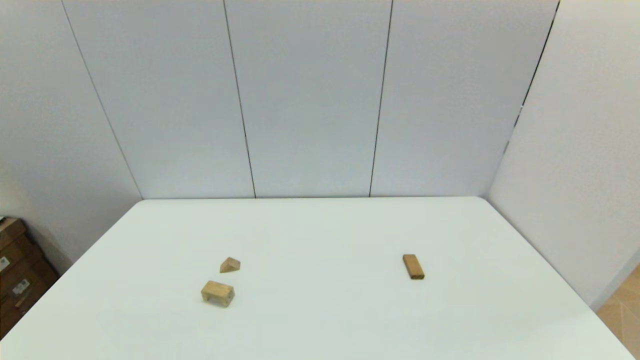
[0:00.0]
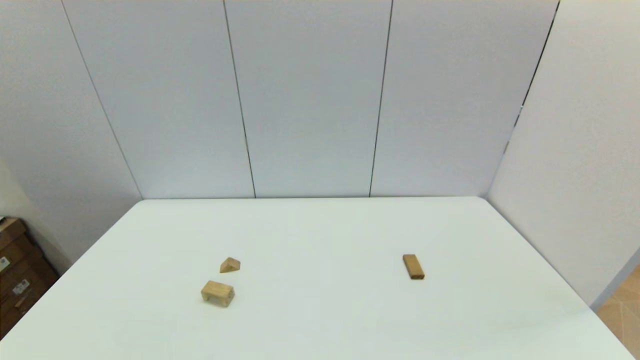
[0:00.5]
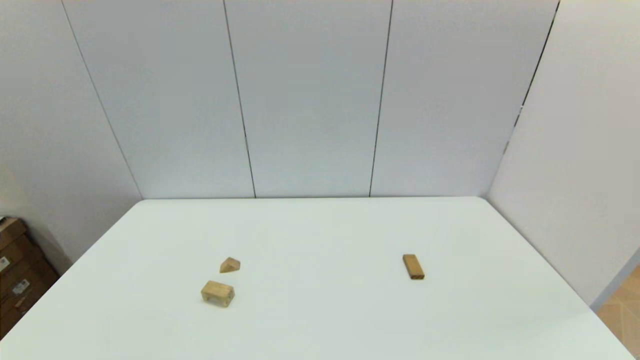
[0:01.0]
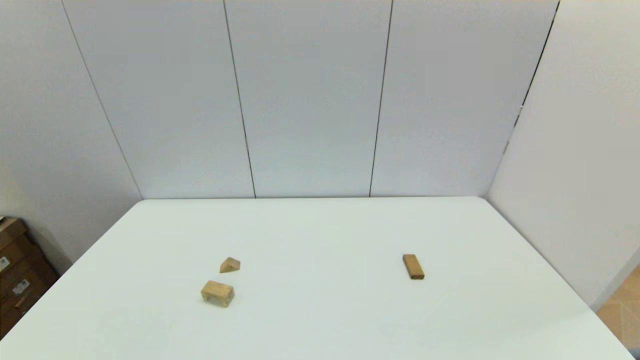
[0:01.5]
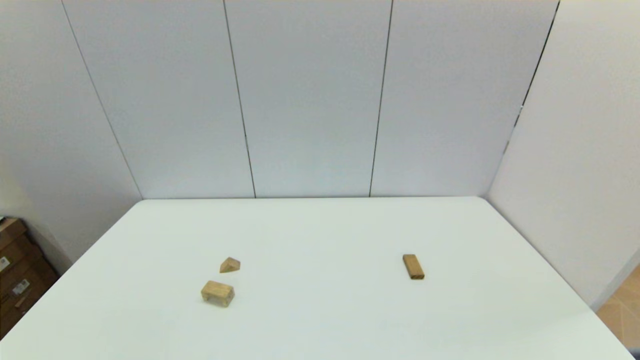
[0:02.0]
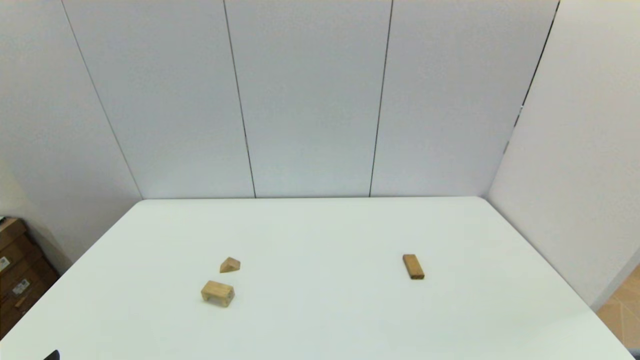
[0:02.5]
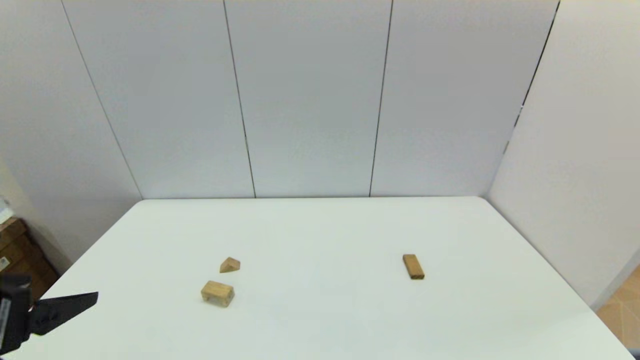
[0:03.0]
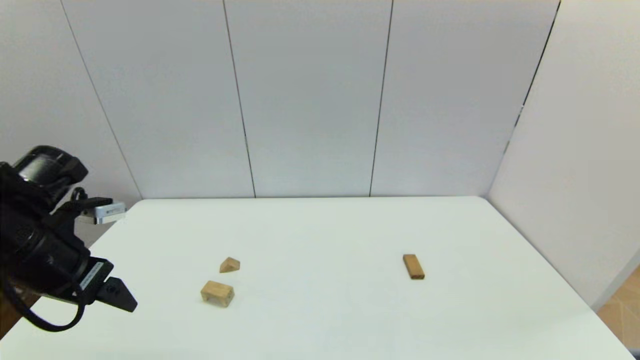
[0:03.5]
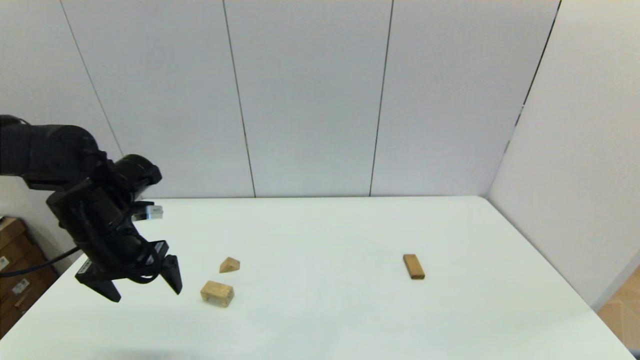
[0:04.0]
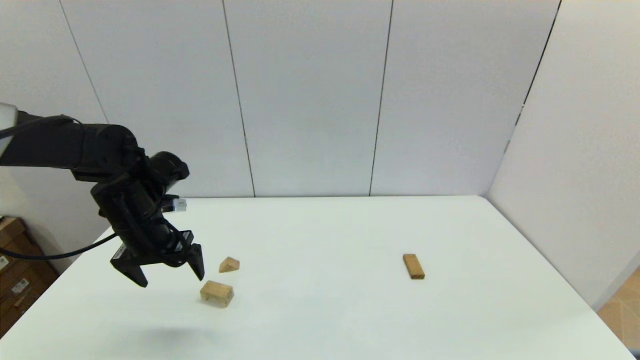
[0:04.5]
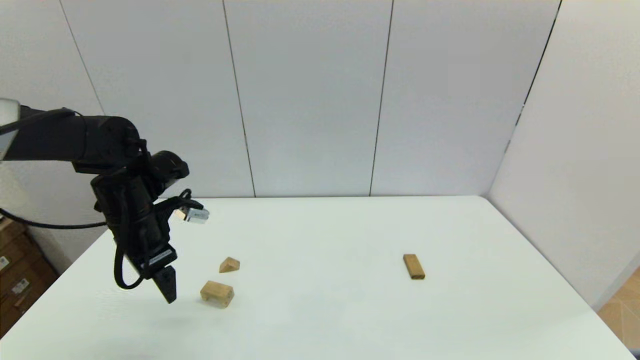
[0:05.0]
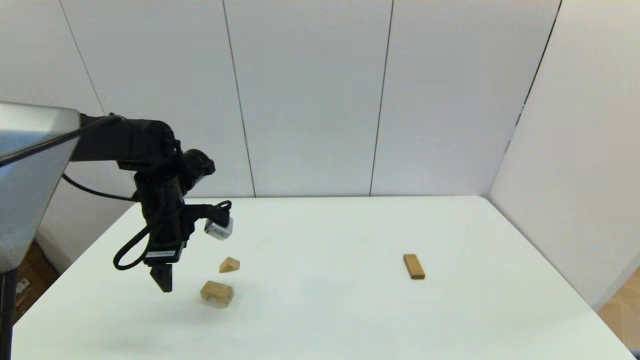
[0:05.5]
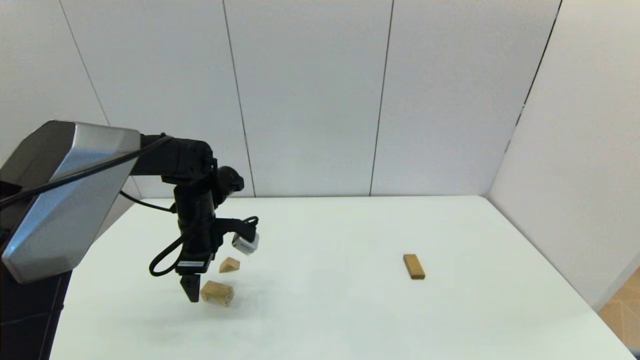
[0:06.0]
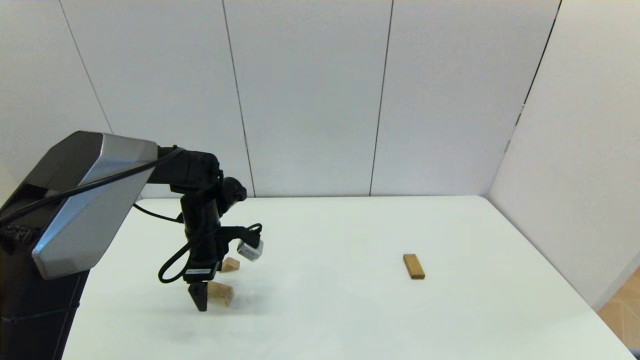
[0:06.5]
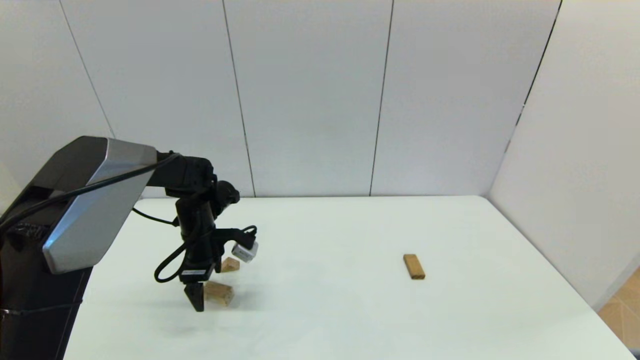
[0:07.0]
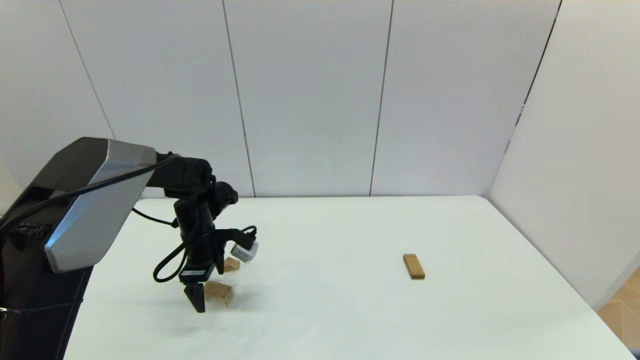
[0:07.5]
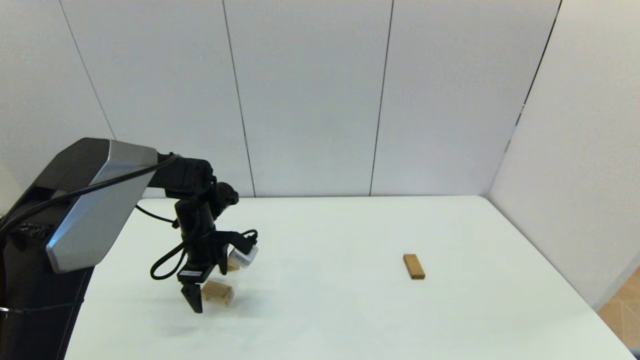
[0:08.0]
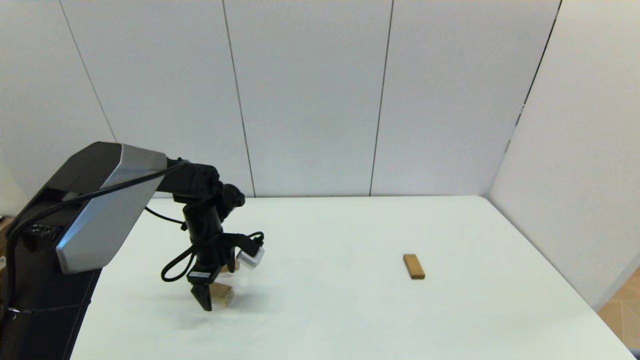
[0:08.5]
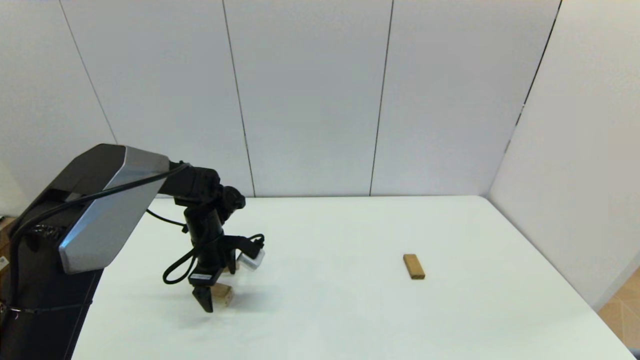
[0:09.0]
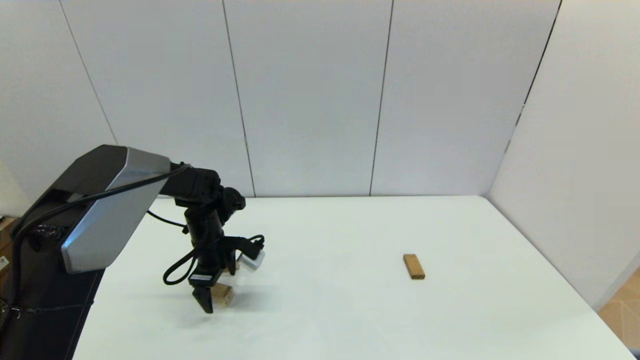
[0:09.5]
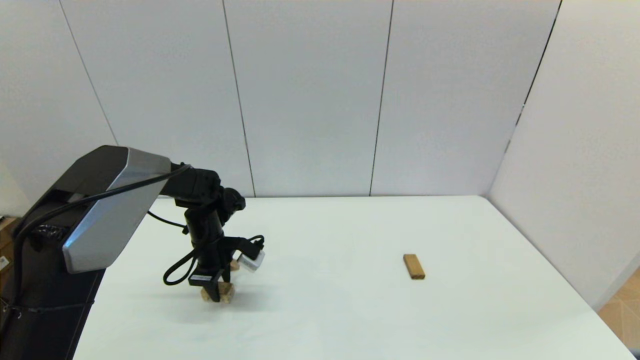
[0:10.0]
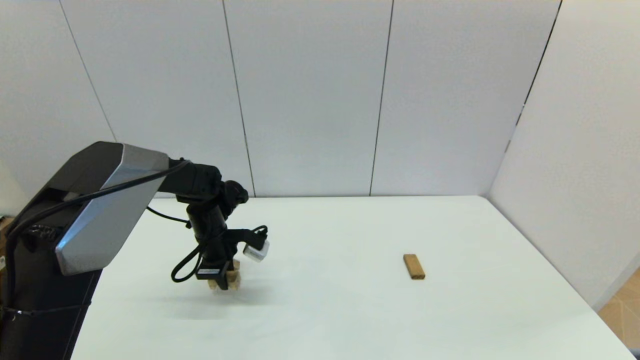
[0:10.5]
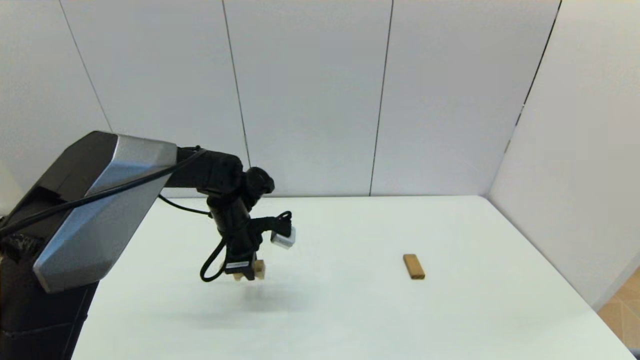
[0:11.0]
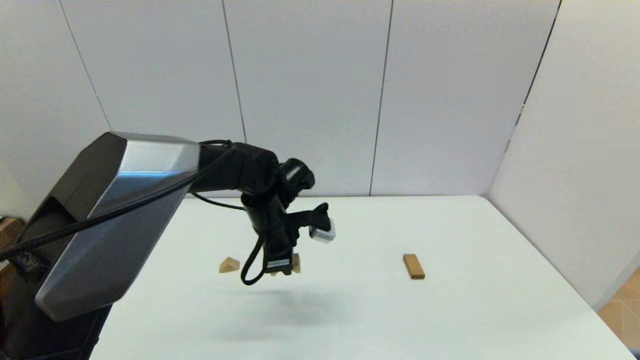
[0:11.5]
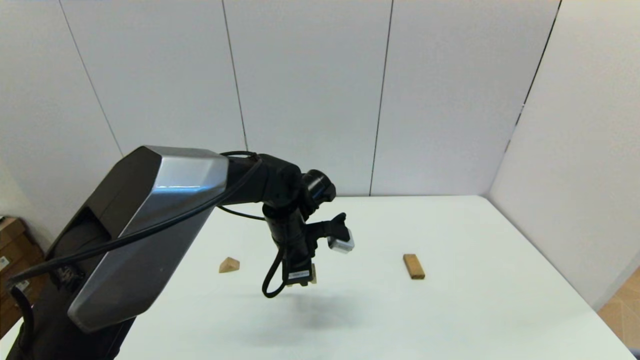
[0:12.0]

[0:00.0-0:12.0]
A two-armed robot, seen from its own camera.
Task of the whole recording: place the arched building blocks in the center of the table, set up the rectangular building blocks, and then set up the triangular building blocks.
Step, 0:02.5 to 0:09.5: Grasp the arch-shaped block with the left gripper.
0:00.0 to 0:02.0: The two grippers keep their place.
0:02.0 to 0:04.0: The left gripper travels forward by approximately 30 cm.
0:04.0 to 0:06.0: The left gripper is displaced forward, to the right and downward by some 10 cm.
0:06.0 to 0:08.0: There are only small adjustments of the grippers.
0:08.0 to 0:10.0: The left gripper closes its fingers.
0:10.0 to 0:12.0: The left gripper travels to the right by about 15 cm.

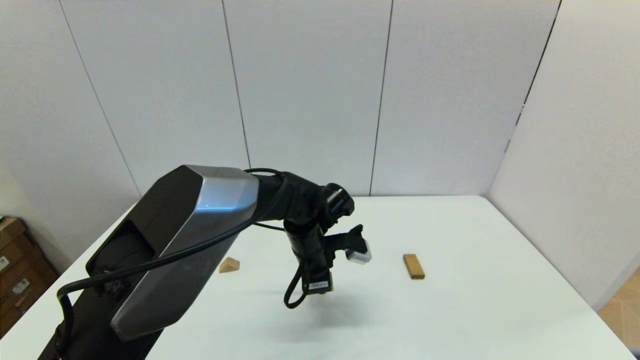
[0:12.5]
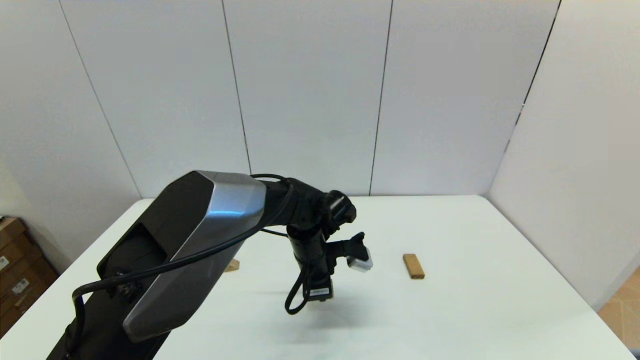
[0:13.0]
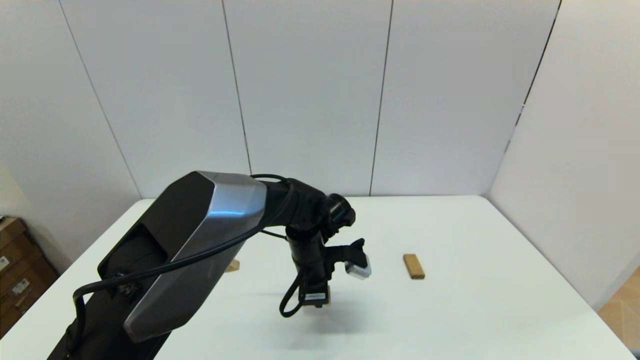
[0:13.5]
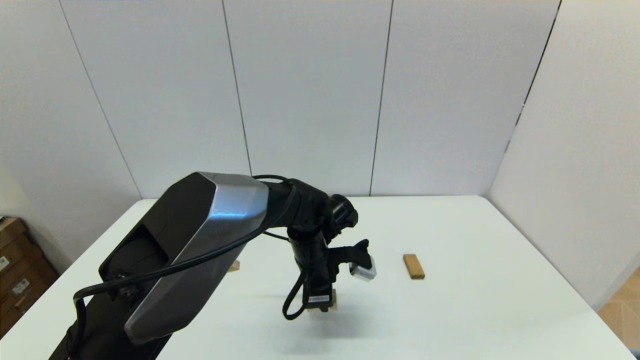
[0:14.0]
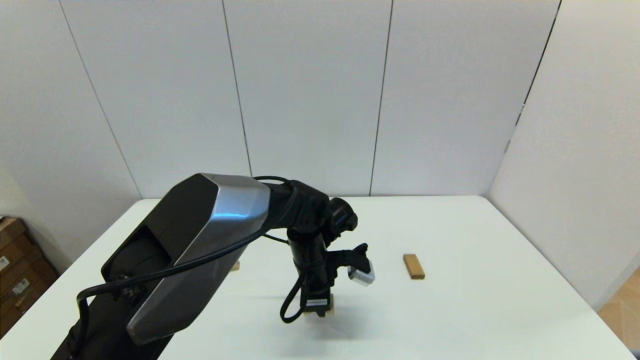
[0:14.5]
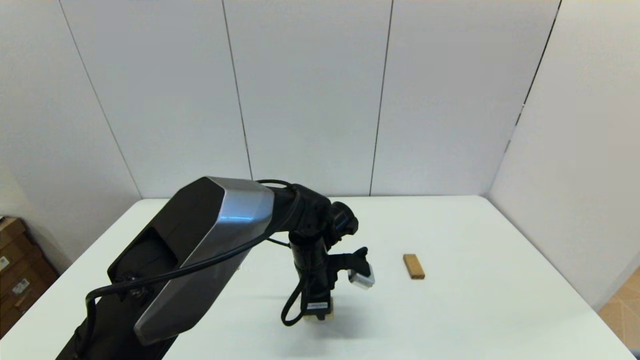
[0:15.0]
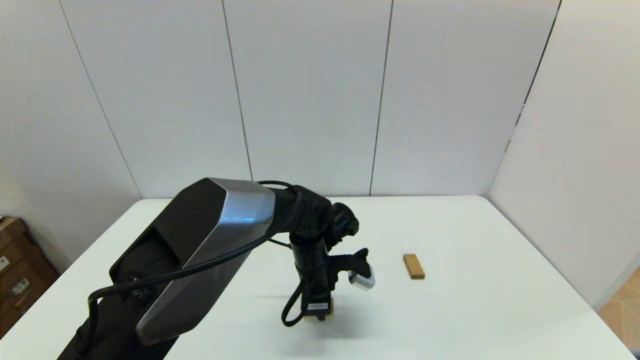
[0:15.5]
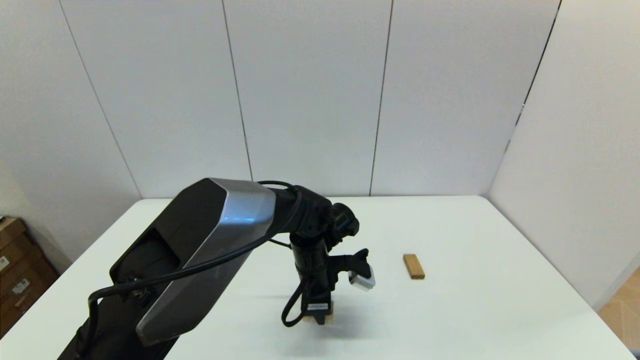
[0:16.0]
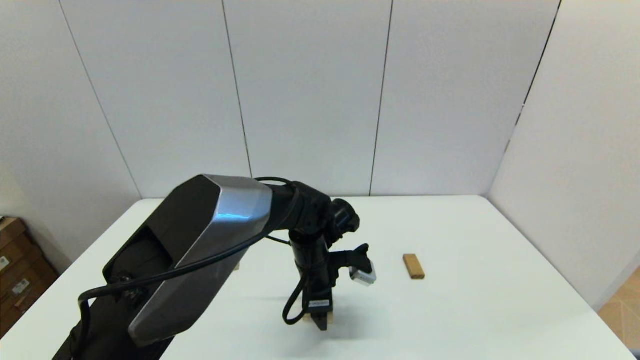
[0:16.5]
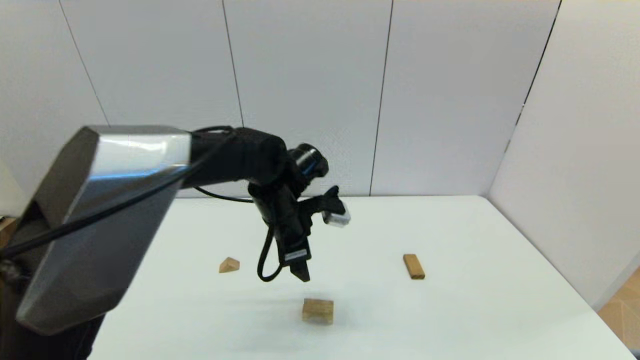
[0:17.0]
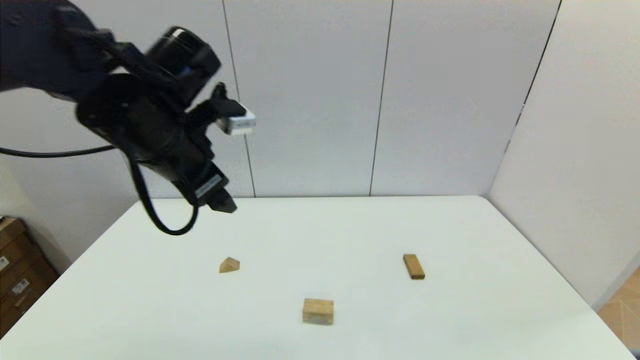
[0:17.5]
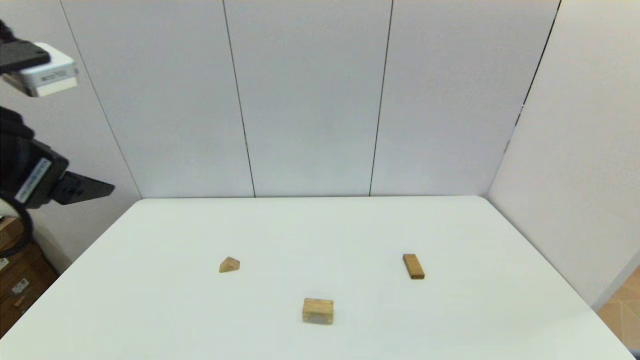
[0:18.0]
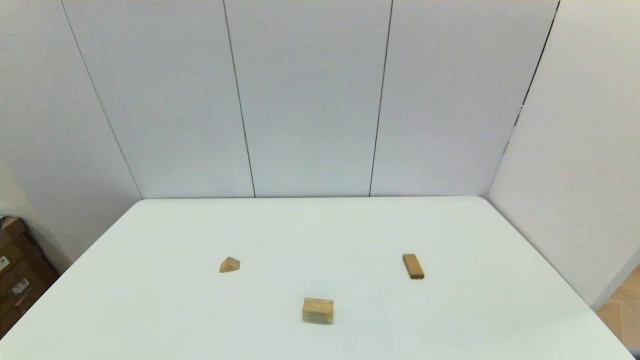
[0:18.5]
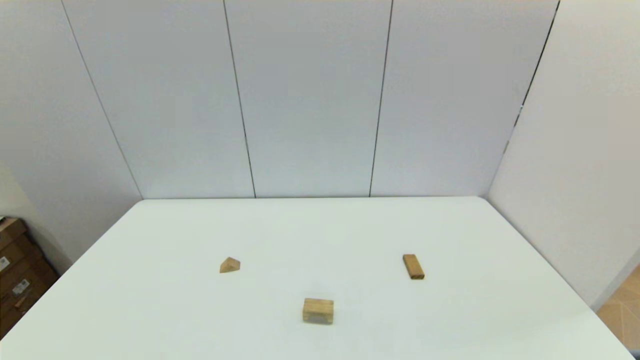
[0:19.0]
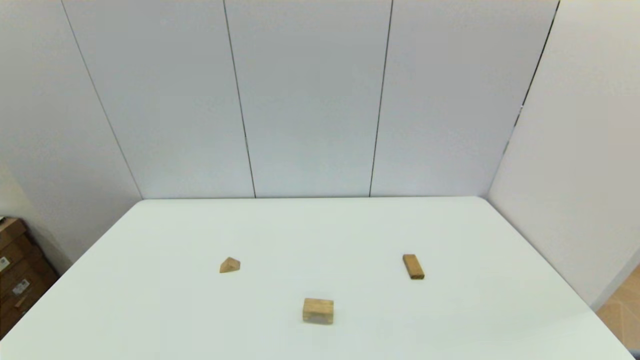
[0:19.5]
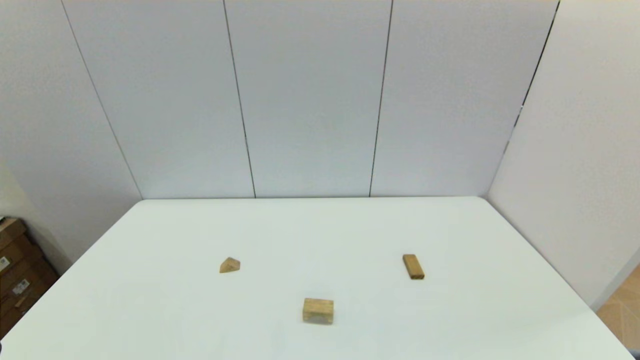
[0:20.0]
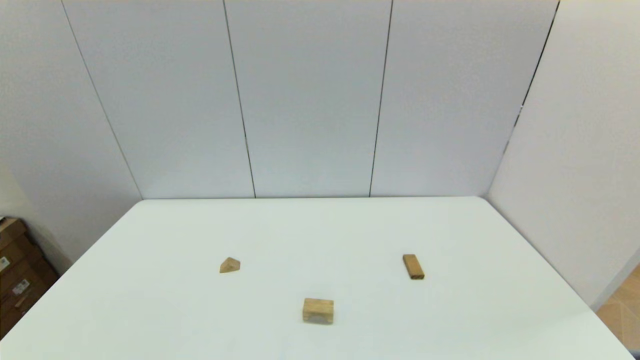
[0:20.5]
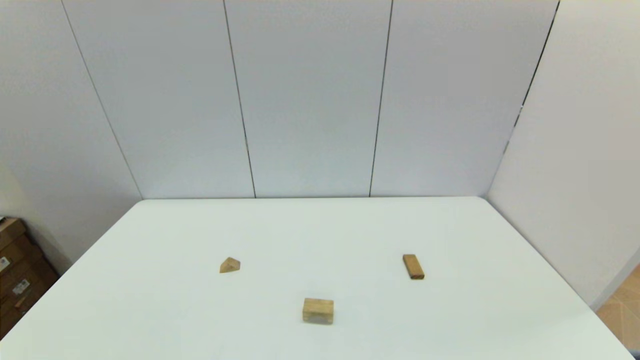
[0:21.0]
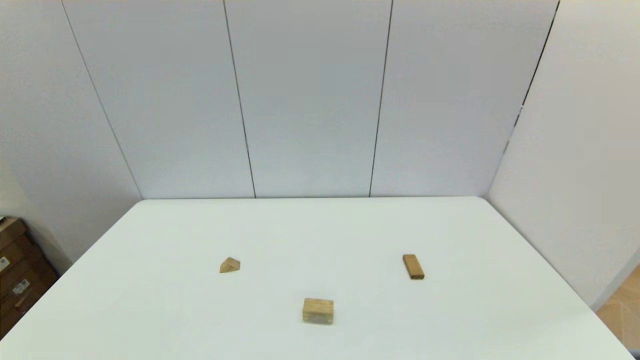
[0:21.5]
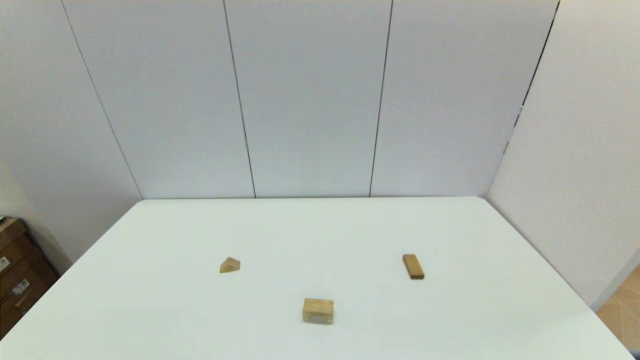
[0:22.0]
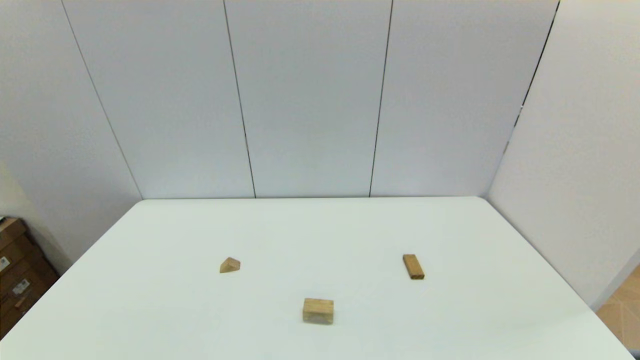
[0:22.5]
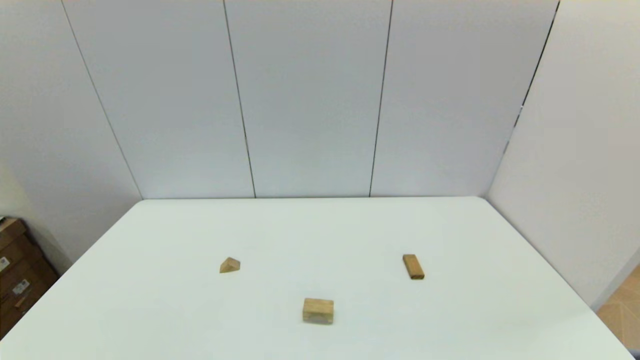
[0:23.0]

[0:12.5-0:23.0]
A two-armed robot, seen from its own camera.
Task of the whole recording: place the arched building blocks in the center of the table, set up the rectangular building blocks, and then set up the triangular building blocks.
Step, 0:12.5 to 0:16.5: Place the arch-shaped block in the center of view with the left gripper.
0:12.5 to 0:14.5: The grippers make only small movements.
0:14.5 to 0:16.5: The left gripper opens up.
0:16.5 to 0:19.0: The left gripper heads backward, to the left and upward, covering some 50 cm.
